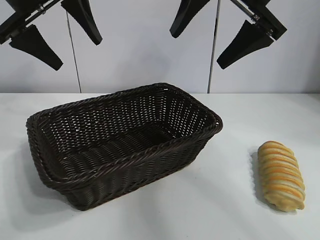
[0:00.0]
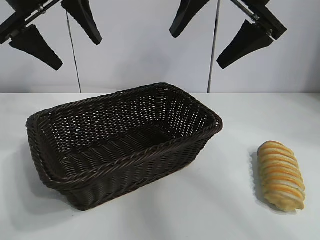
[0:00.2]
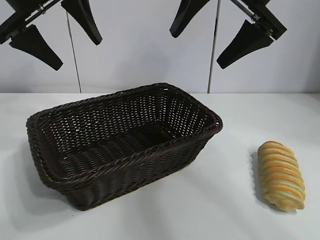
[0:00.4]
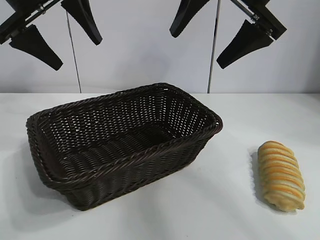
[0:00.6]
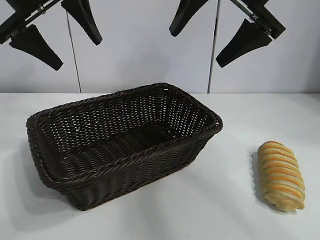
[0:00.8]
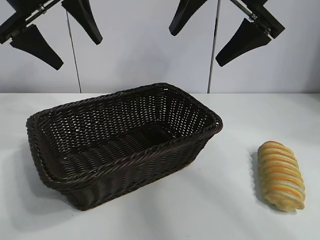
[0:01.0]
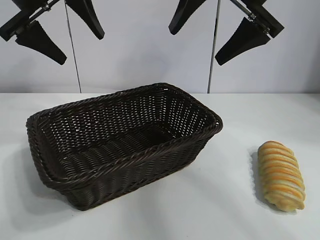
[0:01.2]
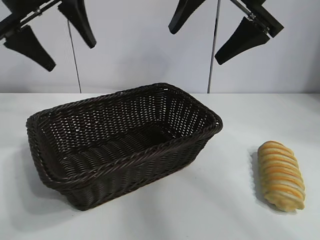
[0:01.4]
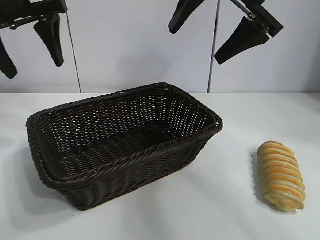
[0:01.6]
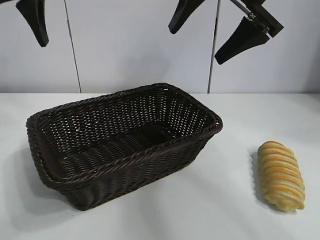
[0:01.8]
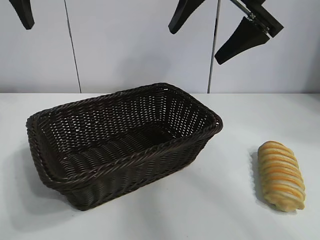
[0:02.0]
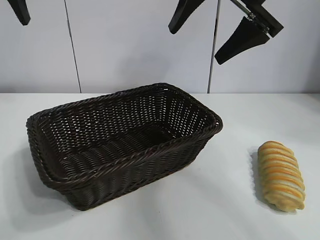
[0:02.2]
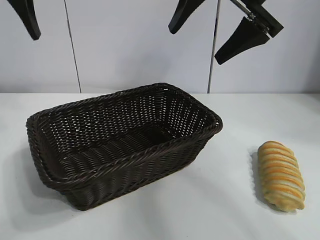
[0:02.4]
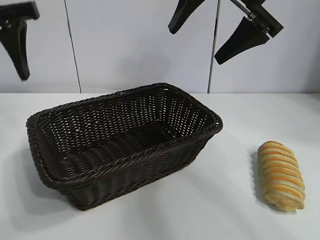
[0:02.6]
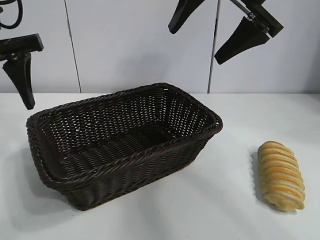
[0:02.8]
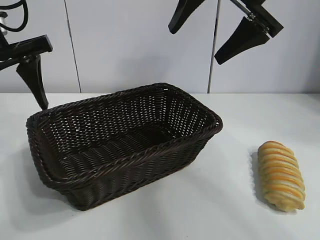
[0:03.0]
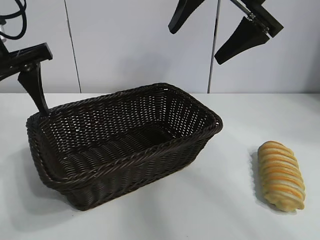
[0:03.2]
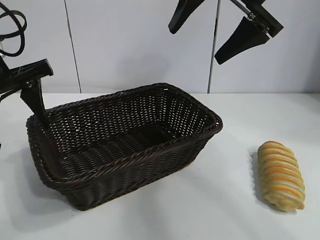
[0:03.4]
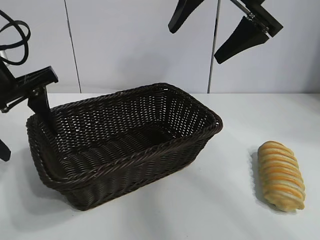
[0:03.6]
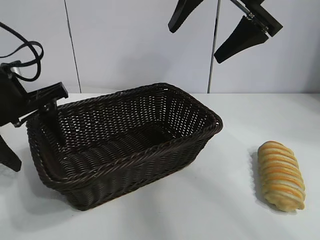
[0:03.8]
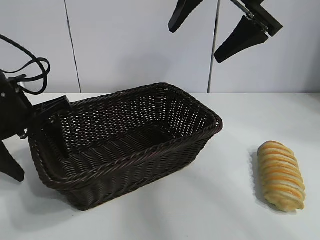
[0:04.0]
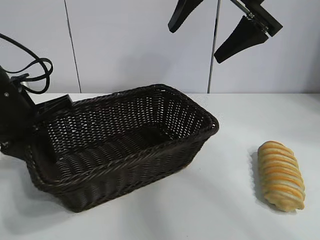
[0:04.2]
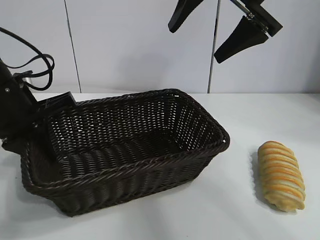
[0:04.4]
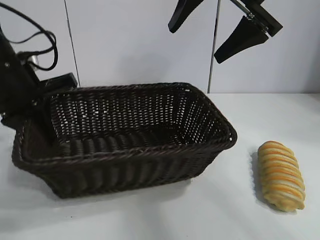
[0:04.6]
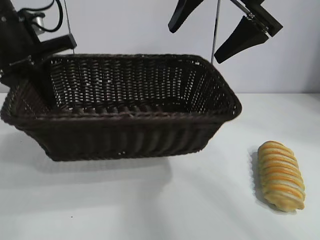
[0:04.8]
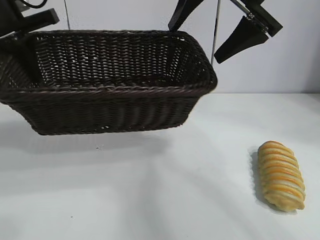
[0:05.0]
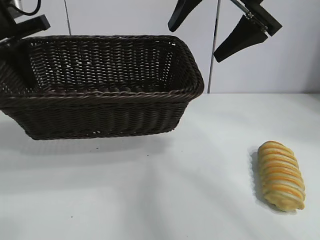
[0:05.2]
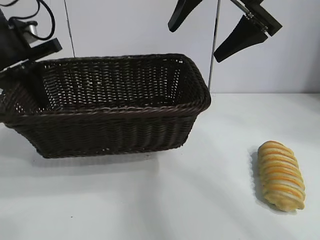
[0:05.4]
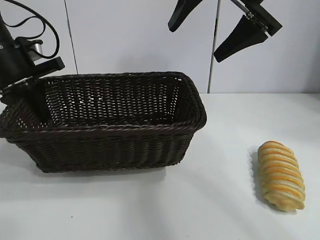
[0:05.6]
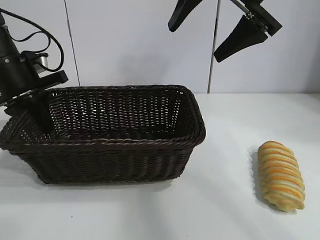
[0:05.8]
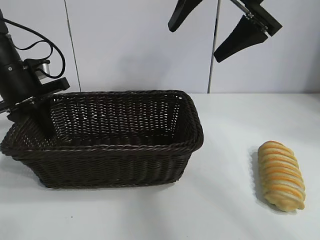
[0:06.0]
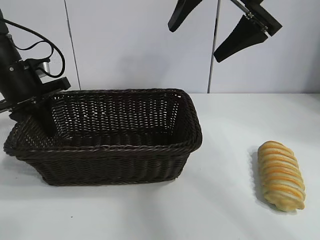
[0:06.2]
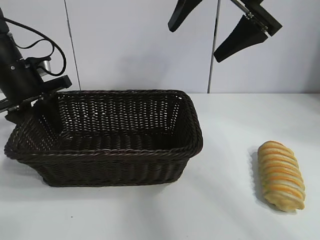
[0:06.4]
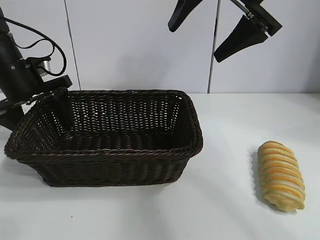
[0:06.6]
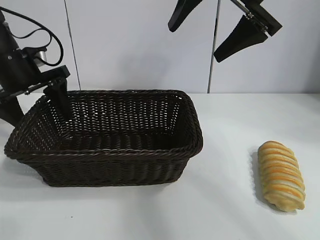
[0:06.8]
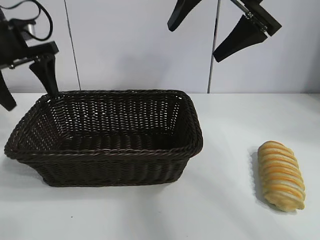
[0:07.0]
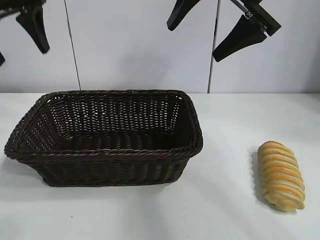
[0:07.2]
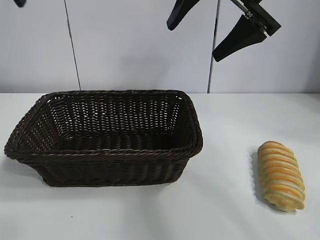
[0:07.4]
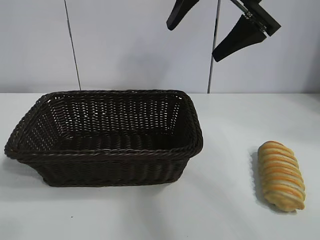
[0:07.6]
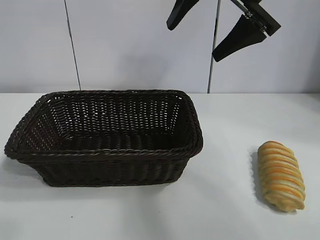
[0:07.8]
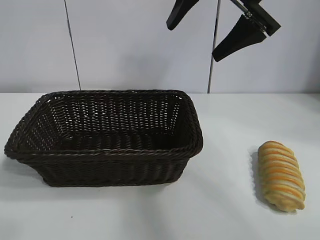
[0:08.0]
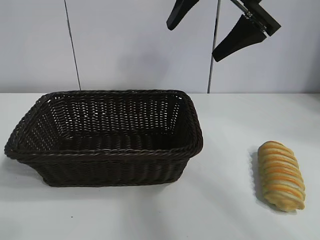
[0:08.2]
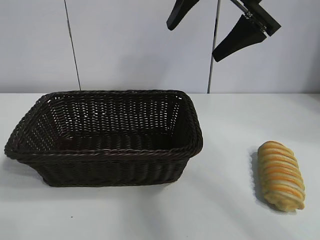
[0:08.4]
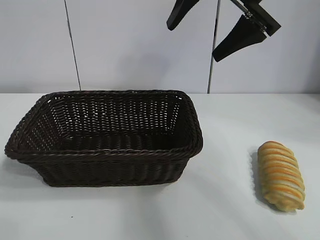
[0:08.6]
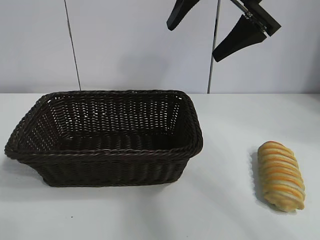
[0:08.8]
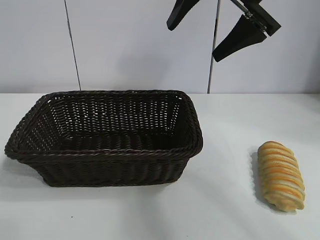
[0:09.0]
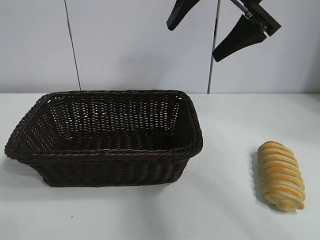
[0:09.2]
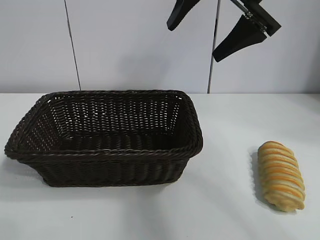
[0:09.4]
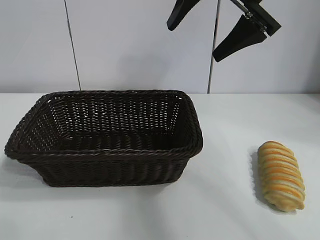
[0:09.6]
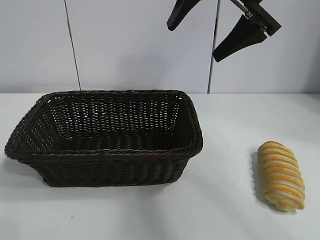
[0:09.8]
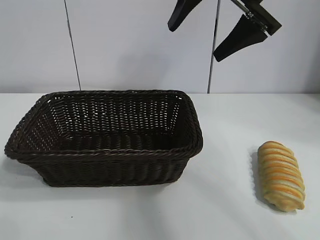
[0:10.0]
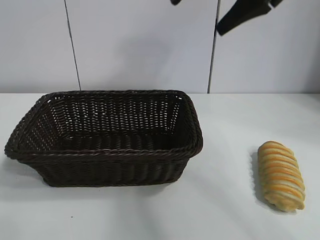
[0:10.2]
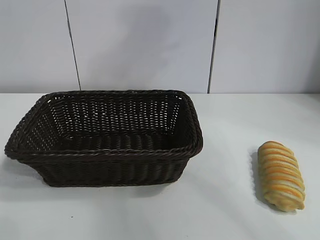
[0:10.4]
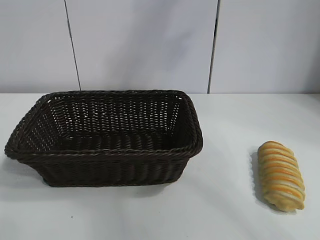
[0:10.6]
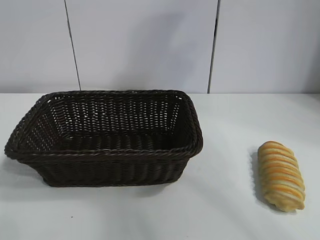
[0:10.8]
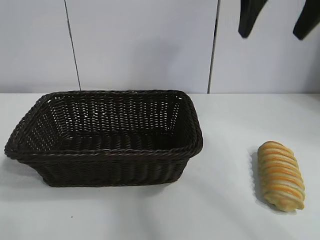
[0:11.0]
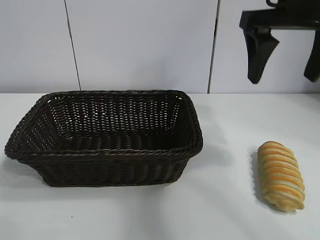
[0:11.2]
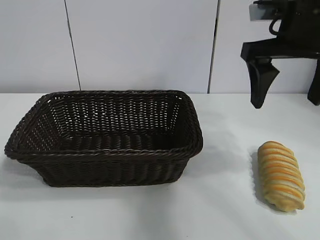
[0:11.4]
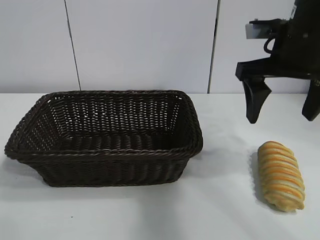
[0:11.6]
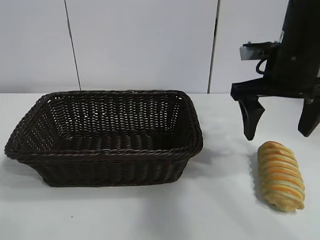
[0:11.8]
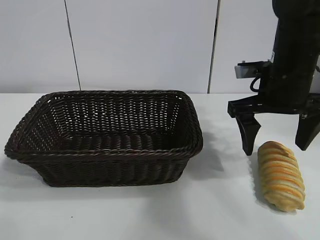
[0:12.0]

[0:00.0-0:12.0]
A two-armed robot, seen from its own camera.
Task of the whole recording: pick up the long bread and put it into the basket.
Step, 0:01.2 to 0:04.2: Grasp the basket with the left gripper.
Step, 0:04.6 to 0:06.4: Place the basket in the center of the table with the left gripper.

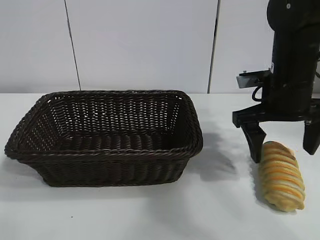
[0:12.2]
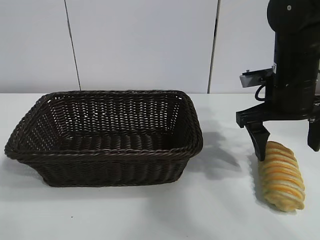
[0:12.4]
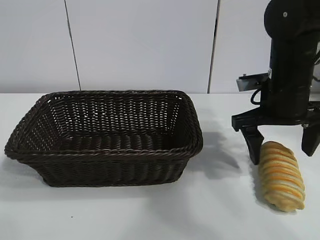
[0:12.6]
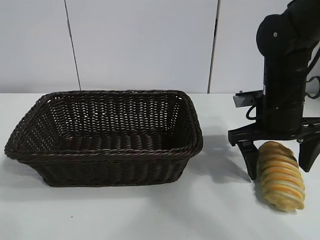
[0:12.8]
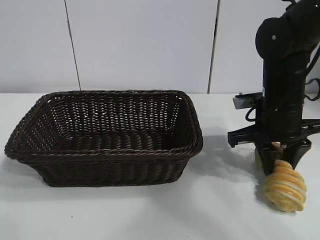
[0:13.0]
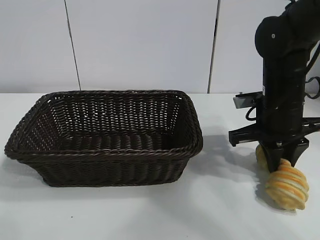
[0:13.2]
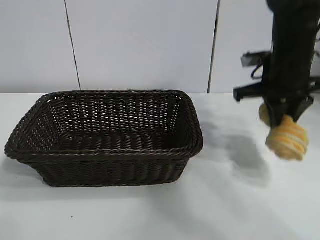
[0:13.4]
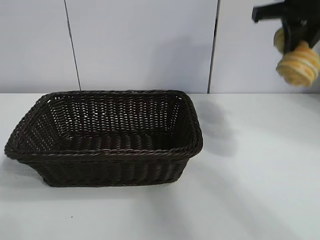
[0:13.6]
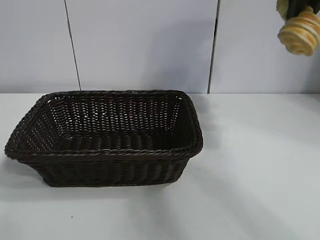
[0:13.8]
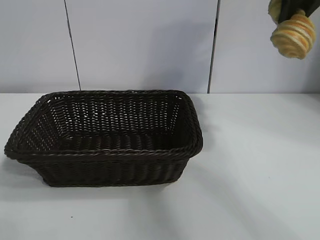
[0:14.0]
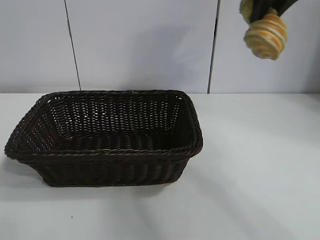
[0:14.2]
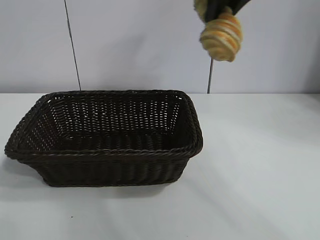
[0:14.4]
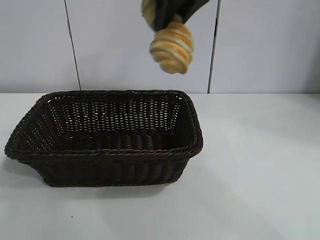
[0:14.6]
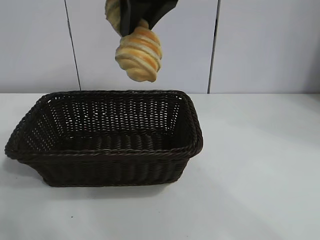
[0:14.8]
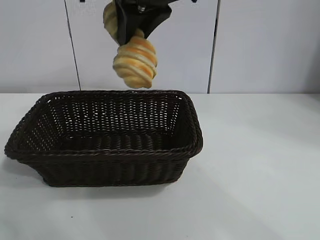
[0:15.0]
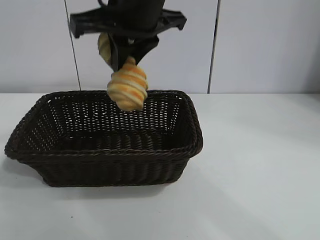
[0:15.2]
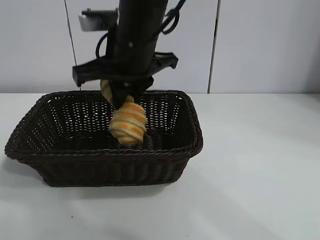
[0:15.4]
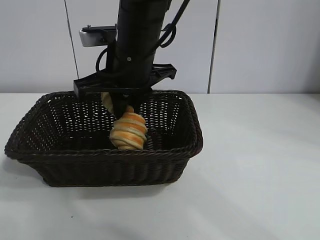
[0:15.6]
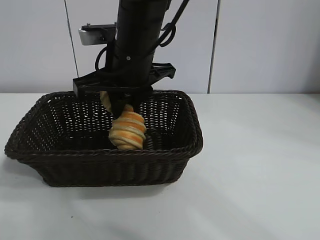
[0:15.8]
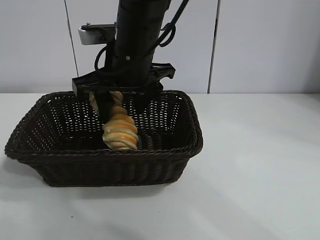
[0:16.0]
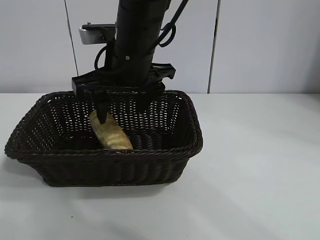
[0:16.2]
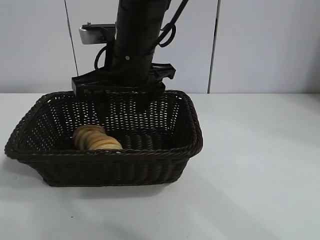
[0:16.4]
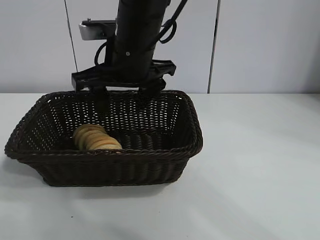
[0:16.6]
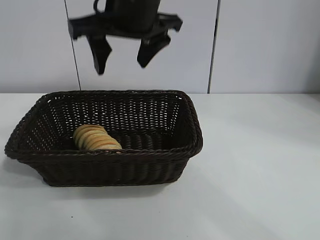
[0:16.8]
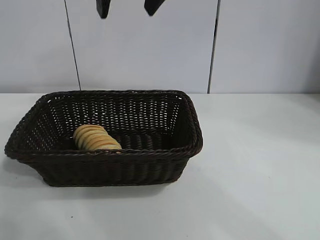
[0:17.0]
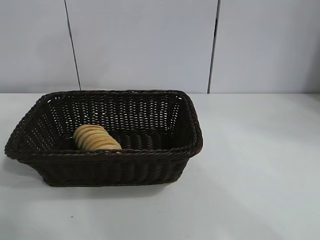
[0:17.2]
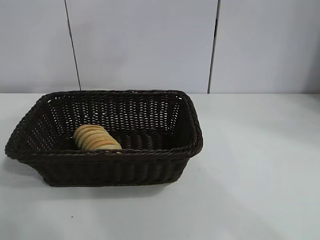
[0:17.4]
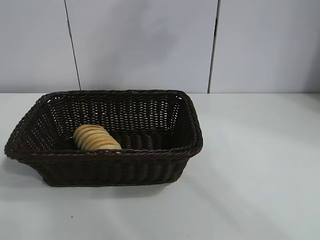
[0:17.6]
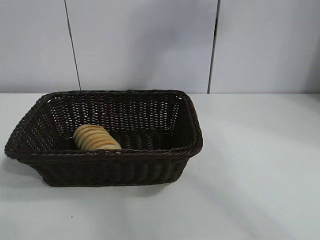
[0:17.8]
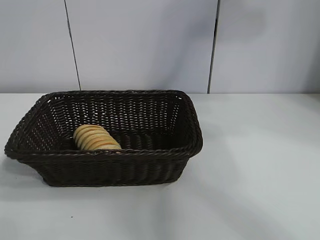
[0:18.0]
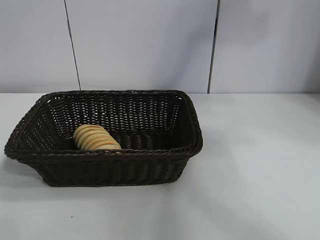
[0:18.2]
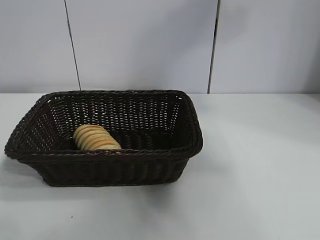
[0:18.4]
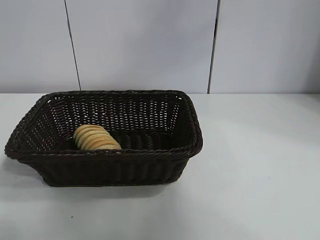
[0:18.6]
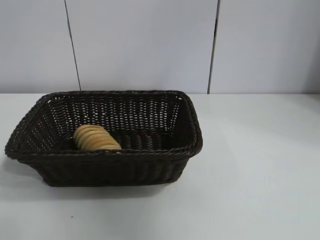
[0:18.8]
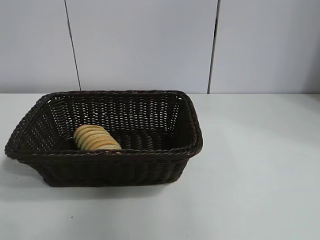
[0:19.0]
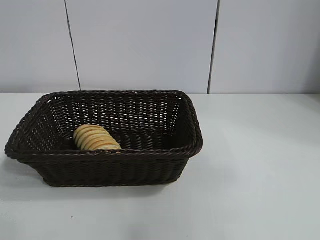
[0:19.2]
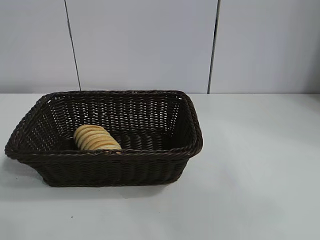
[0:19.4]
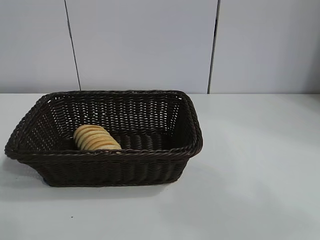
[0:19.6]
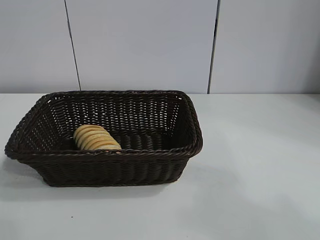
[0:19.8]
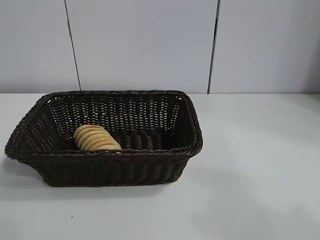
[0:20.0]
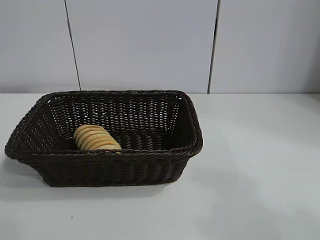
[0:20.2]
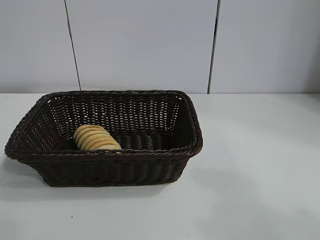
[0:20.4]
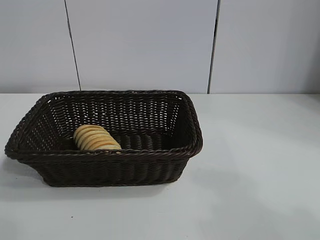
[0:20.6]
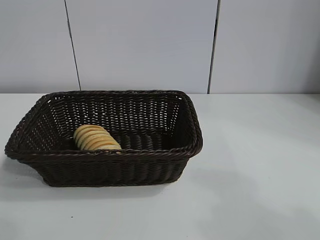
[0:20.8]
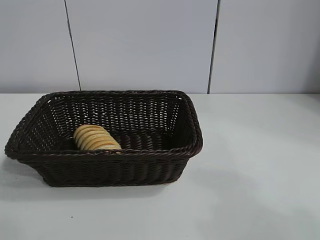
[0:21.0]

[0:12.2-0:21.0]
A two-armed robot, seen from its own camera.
Task of the whole recording: pick up the long bread and put it into the basket.
Step, 0:13.2 to 0:16.2: Place the long bread in the basket with right gripper.
